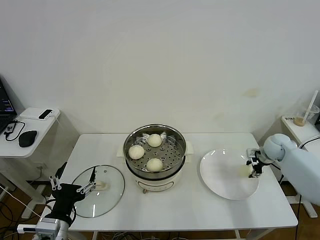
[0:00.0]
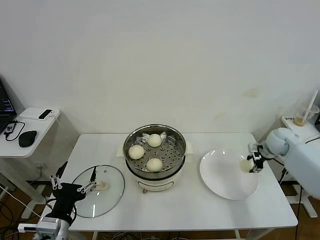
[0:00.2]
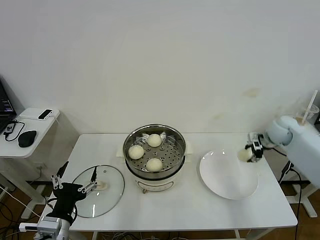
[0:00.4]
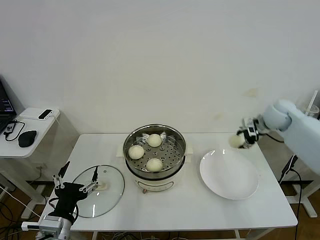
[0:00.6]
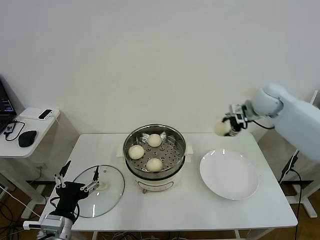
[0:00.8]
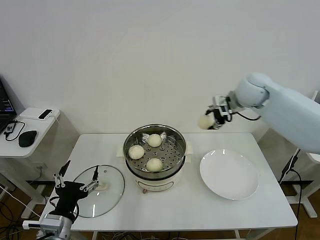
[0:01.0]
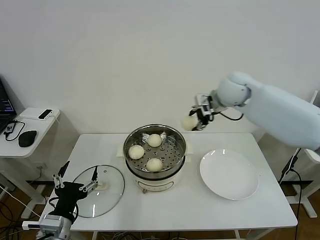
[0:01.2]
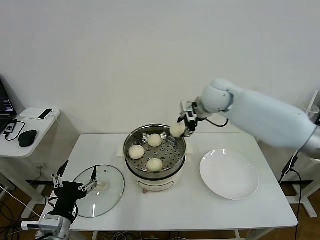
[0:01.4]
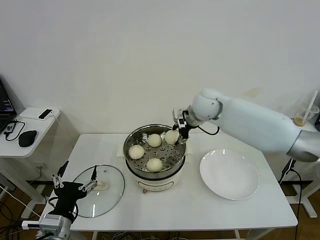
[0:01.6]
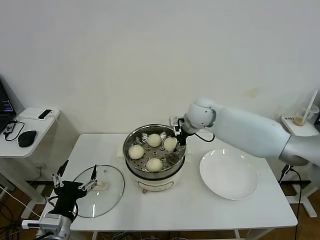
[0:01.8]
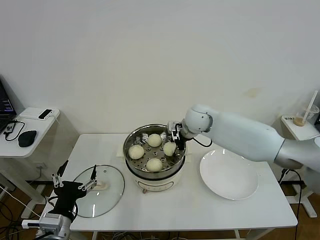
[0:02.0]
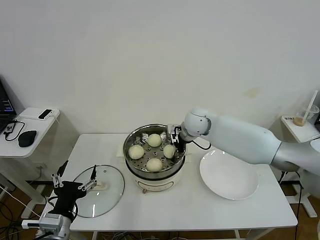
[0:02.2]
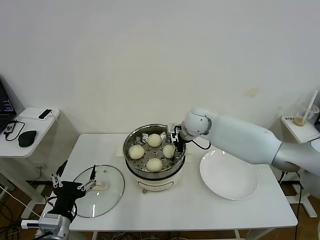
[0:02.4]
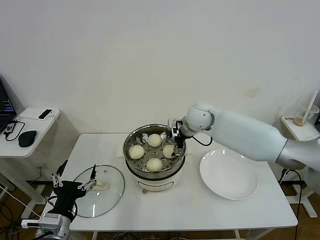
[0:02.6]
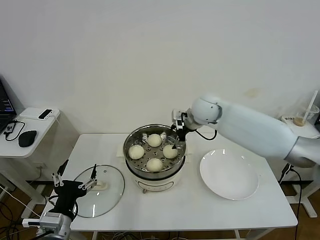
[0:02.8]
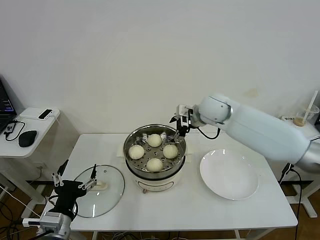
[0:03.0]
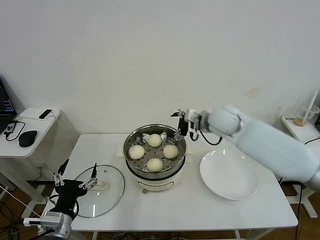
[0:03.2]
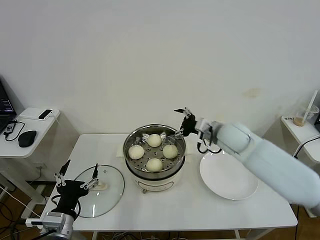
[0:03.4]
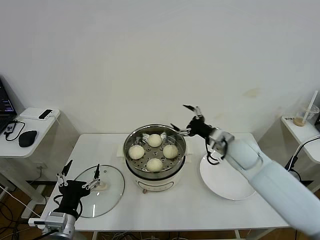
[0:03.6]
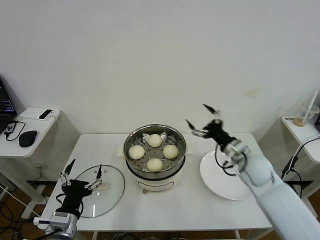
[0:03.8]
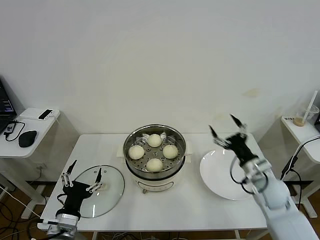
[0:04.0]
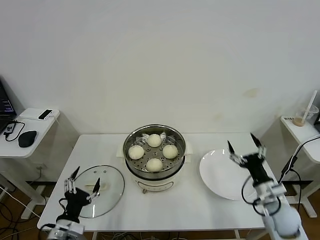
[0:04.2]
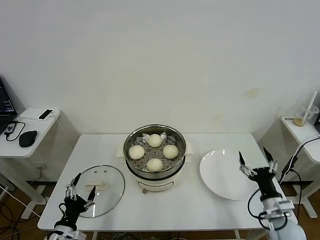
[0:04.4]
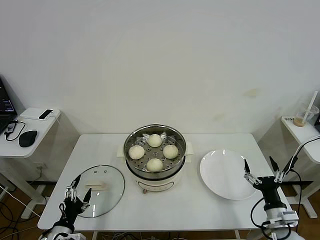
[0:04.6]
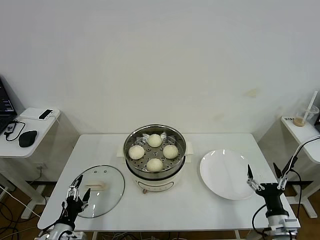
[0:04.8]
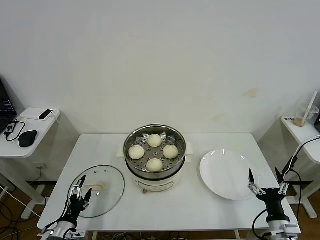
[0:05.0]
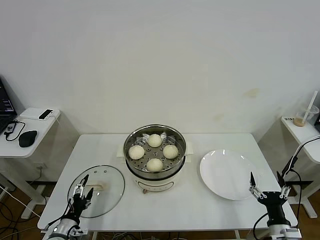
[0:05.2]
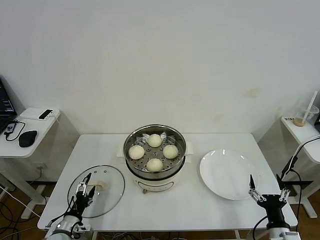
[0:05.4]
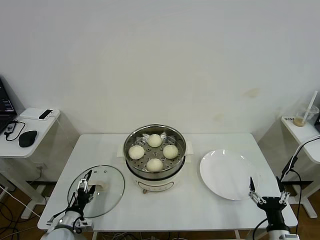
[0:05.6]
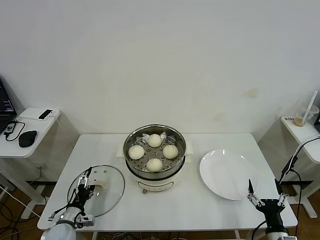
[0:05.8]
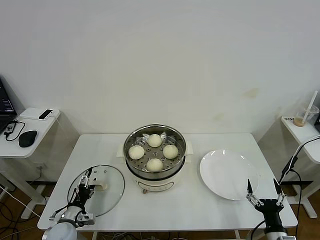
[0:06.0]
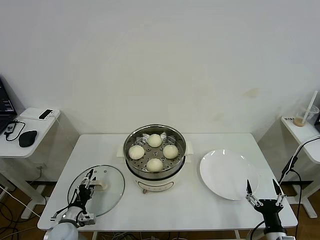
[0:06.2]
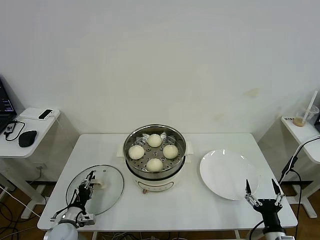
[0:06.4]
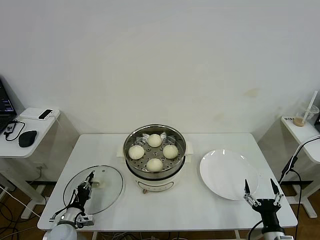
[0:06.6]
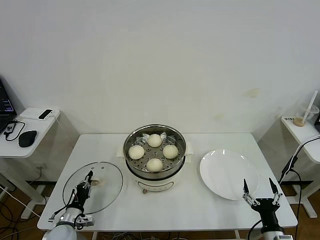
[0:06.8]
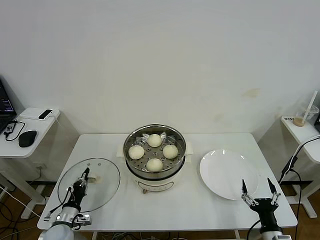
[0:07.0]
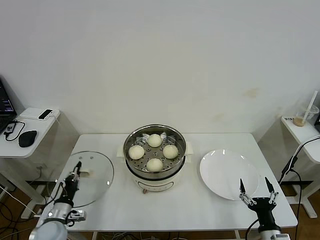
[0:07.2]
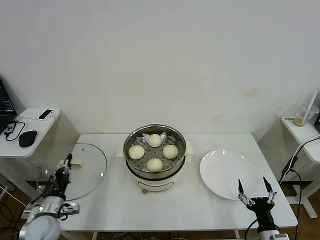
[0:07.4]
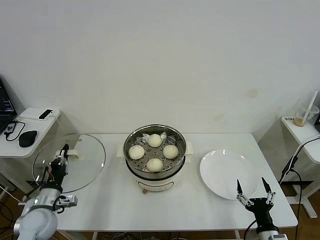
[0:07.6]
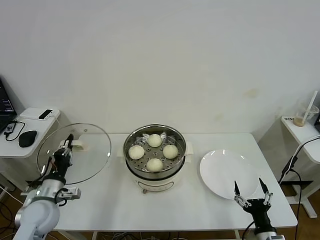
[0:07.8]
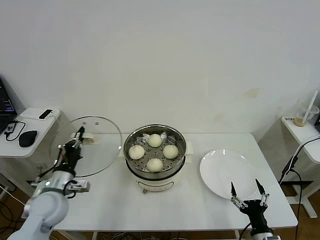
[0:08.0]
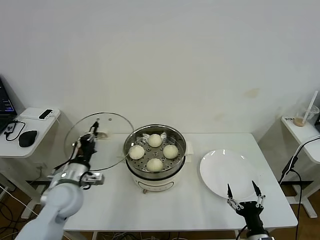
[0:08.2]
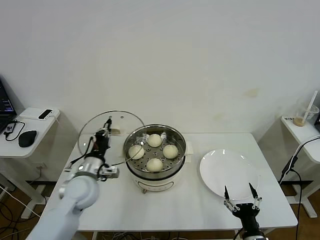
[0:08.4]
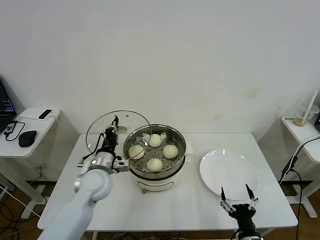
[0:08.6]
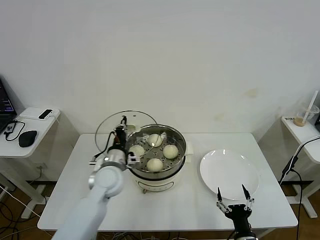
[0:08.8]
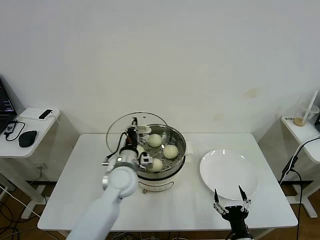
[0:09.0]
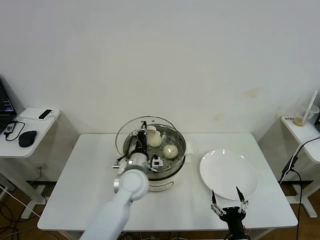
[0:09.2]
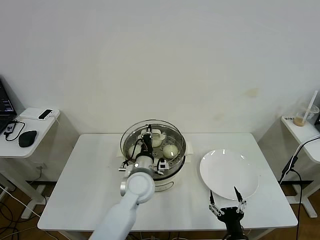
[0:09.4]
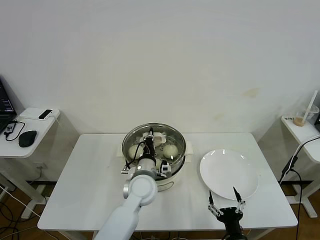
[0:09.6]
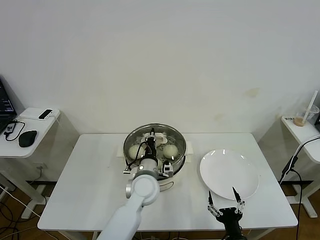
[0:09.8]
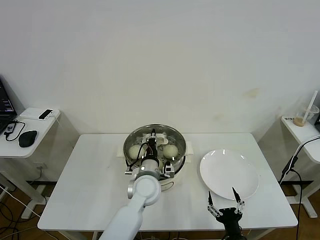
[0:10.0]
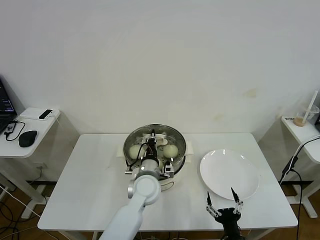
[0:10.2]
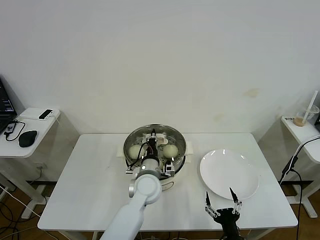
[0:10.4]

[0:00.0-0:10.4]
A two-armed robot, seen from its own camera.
Task of the whole recording: take steamed baozi put them in steamer then cover it.
Step, 0:00.0 to 0:02.6: Place the baozi on the steamer with right gripper.
Step, 0:03.0 to 0:06.6: Grasp the pot lid with left gripper.
0:00.0 to 0:01.4: The right gripper is displaced to the left and upward by approximately 35 cm.
0:01.4 to 0:03.0: The right gripper moves roughly 10 cm downward and comes back, and opens its fingers.
0:03.0 to 0:04.4: The right gripper travels backward, downward and to the right by approximately 40 cm, while the left gripper goes approximately 10 cm downward.
0:04.4 to 0:06.0: The right gripper is displaced backward and downward by some 10 cm. Meanwhile the left gripper is displaced forward and downward by about 15 cm.
0:06.0 to 0:07.4: The left gripper travels upward by some 5 cm, and closes.
0:07.4 to 0:09.0: The right gripper moves to the left, approximately 10 cm. The left gripper heads to the right, forward and upward, covering about 30 cm.
0:09.0 to 0:10.4: The left gripper goes some 10 cm to the right.

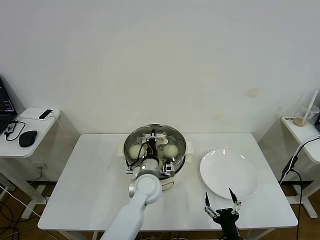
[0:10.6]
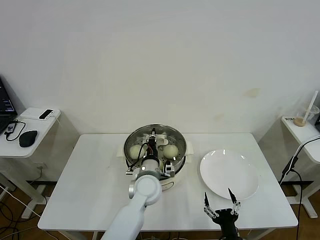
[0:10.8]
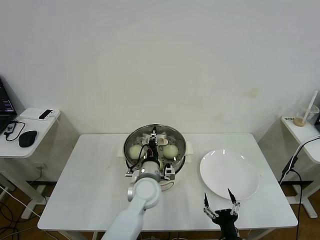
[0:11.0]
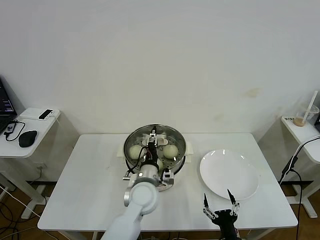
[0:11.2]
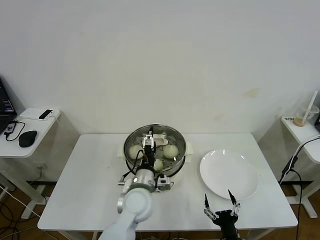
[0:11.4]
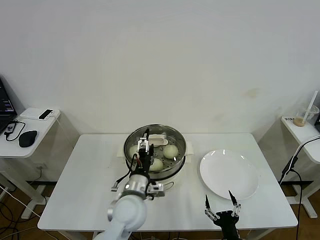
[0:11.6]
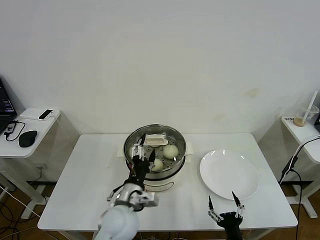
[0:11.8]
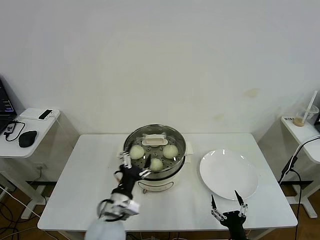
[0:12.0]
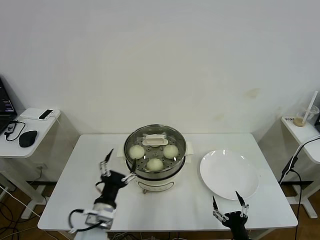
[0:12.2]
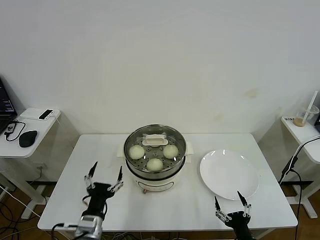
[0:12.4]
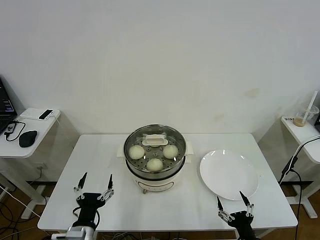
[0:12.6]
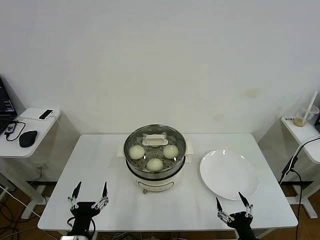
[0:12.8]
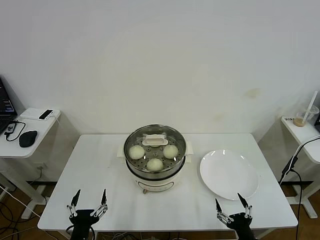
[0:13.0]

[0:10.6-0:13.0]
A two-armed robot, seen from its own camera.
Task of the whole recording: take steamed baozi put them in steamer then cover it.
0:10.6 to 0:11.8: The left gripper heads backward and to the left, covering roughly 10 cm, and opens its fingers.
0:11.8 to 0:13.0: The right gripper shifts about 5 cm to the right; the left gripper shifts some 20 cm backward, to the left and downward.
